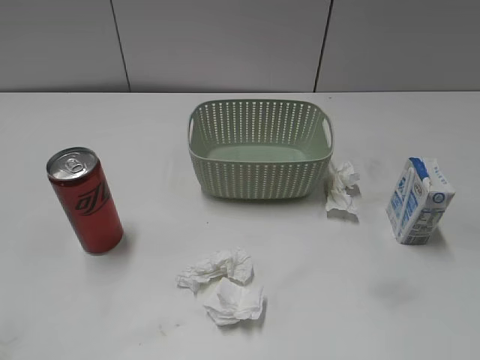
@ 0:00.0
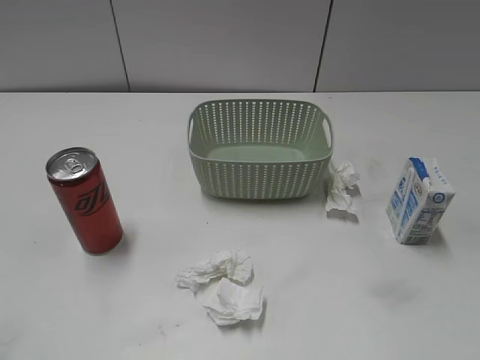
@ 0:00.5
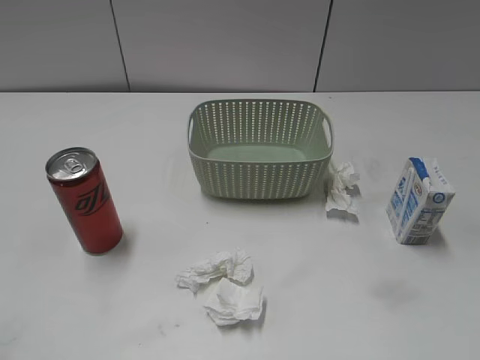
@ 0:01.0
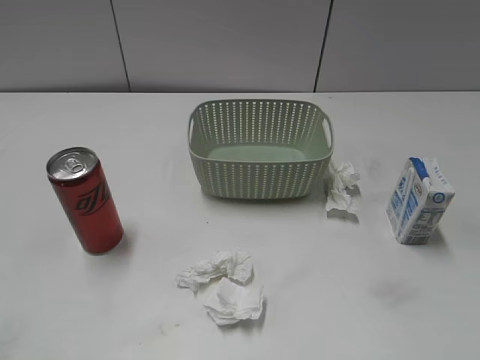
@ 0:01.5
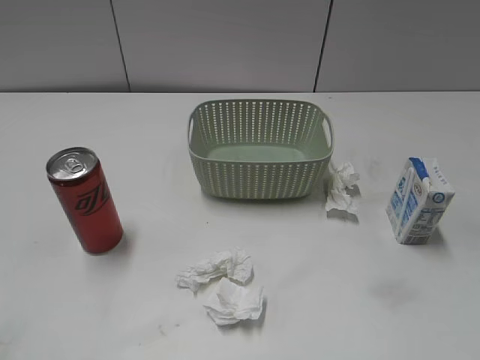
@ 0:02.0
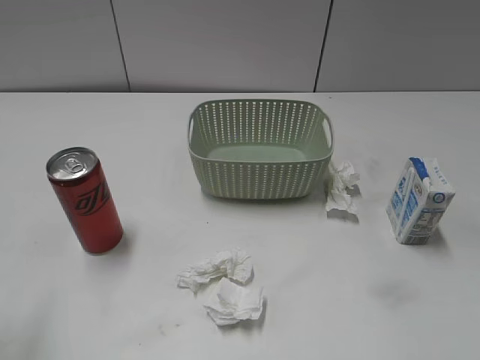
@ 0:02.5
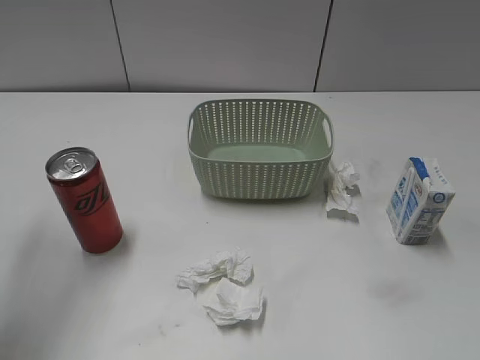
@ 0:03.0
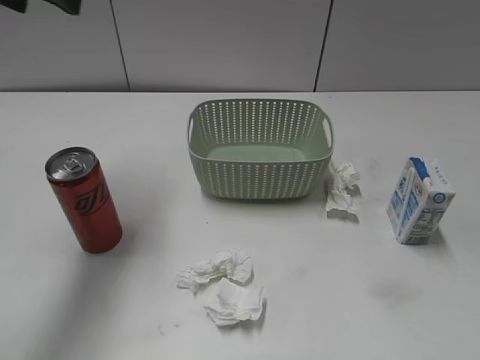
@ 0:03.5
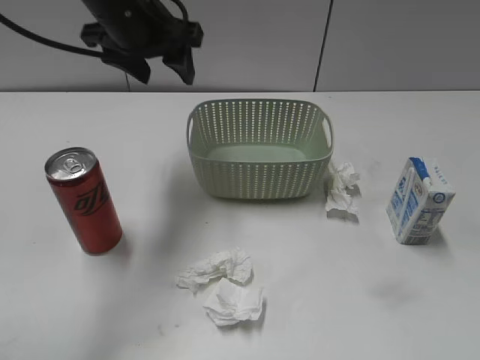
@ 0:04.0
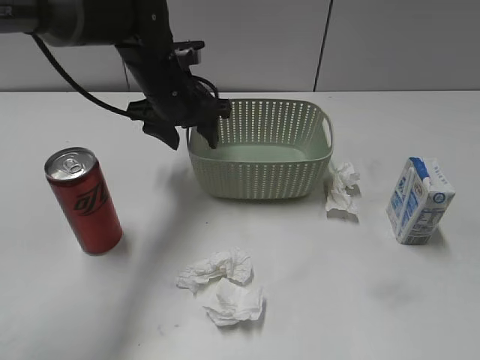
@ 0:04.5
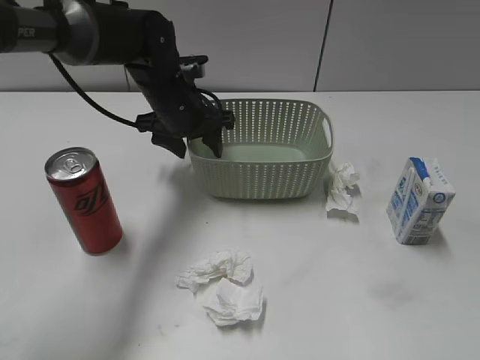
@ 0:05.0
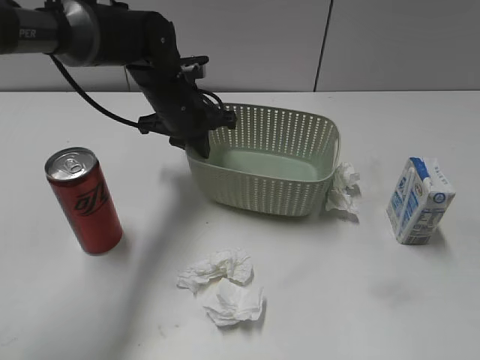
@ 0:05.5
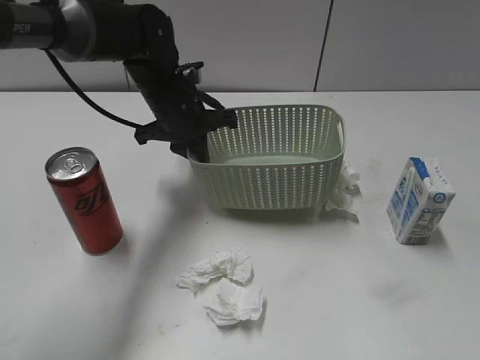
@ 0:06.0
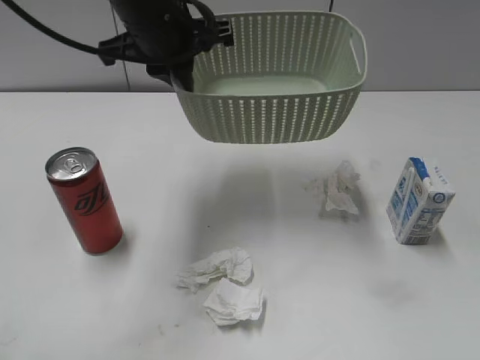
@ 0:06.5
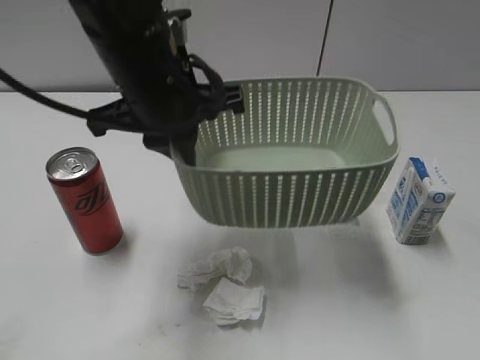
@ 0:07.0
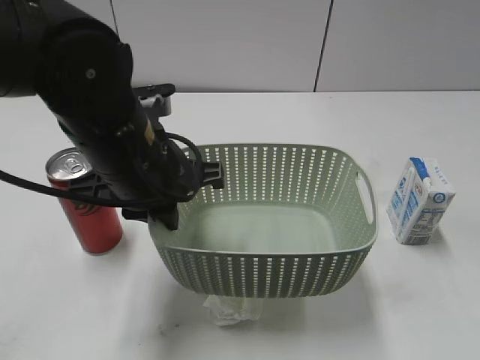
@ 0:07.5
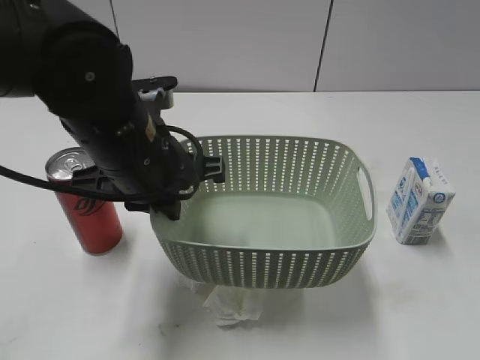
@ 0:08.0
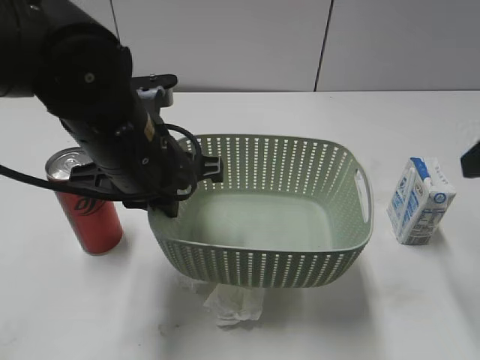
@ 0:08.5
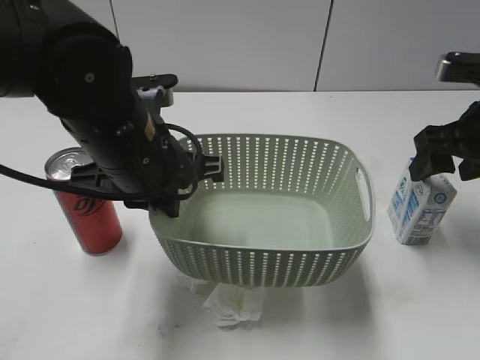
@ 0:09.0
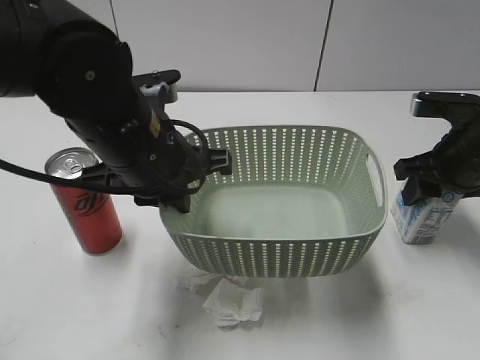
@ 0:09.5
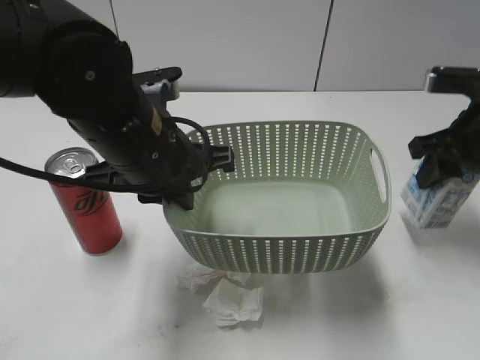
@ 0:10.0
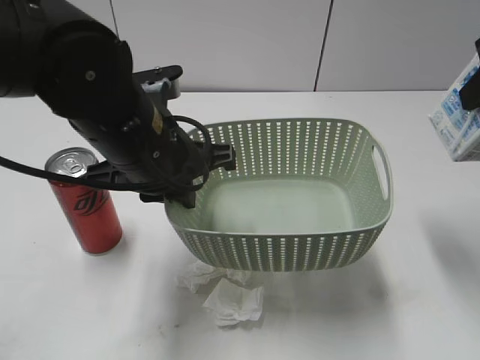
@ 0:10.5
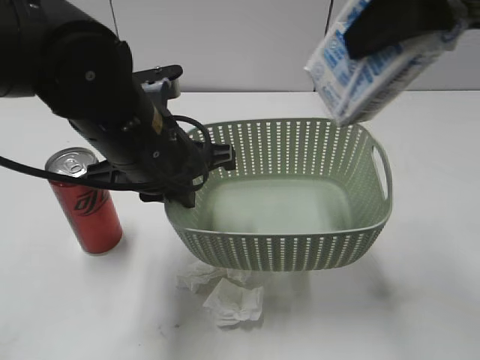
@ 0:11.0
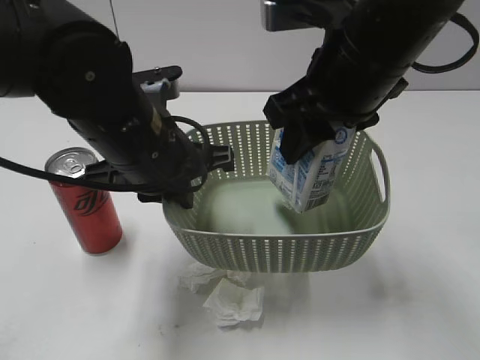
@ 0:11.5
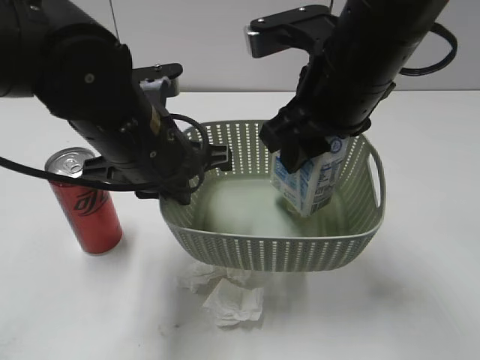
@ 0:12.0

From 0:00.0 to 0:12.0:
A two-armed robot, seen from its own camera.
Step, from 0:03.5 to 0:05.5: Grasp the basket with left gripper.
Step, from 0:06.0 to 0:08.0: Lift the basket with left gripper.
Step, from 0:08.5 to 0:09.5: Grasp the milk with right gripper.
From 0:02.0 to 0:04.0: The left gripper heads forward and to the right, covering approximately 40 cm.
From 0:04.0 to 0:06.0: The left gripper heads downward, covering roughly 10 cm, and closes its fingers.
From 0:06.0 to 0:08.0: The right gripper travels forward by some 5 cm, while the left gripper moves backward, some 15 cm.
From 0:08.0 to 0:10.0: The right gripper travels forward and downward by some 30 cm, and closes.
From 0:10.0 to 0:12.0: The right gripper is displaced to the left by about 20 cm.

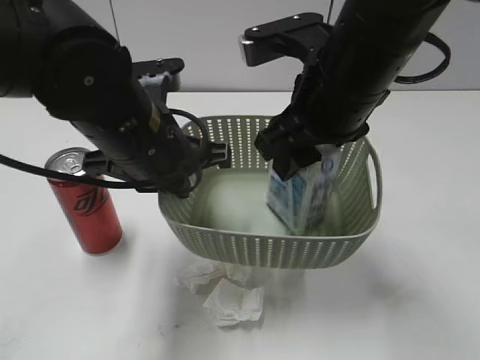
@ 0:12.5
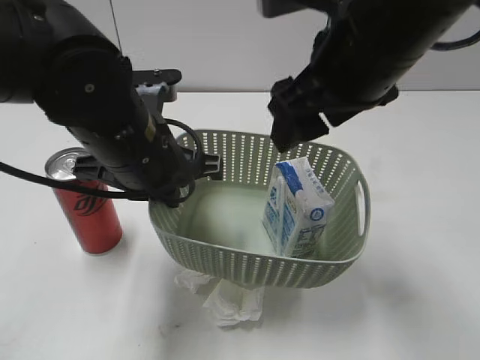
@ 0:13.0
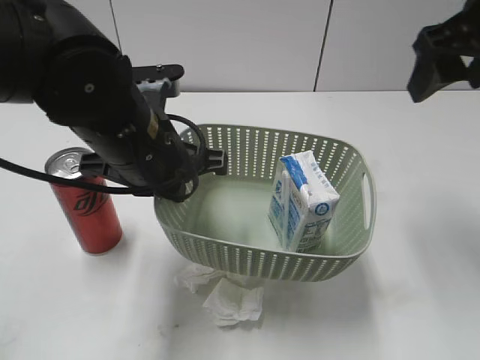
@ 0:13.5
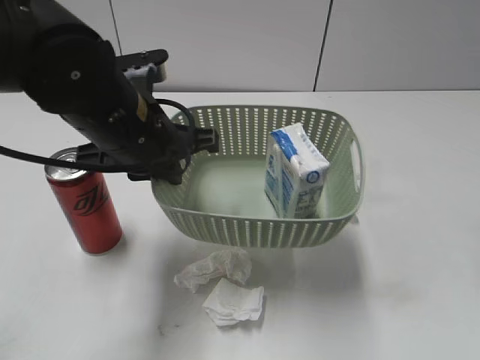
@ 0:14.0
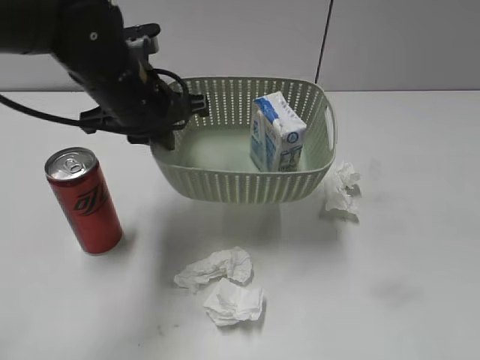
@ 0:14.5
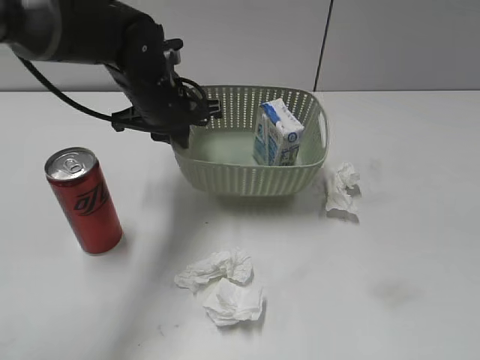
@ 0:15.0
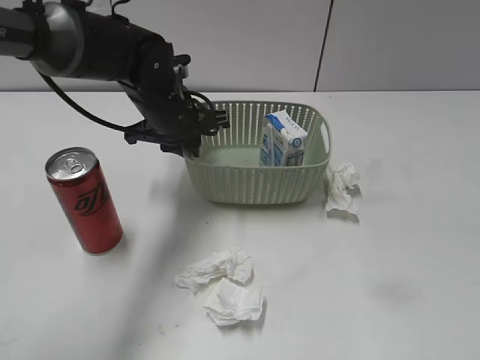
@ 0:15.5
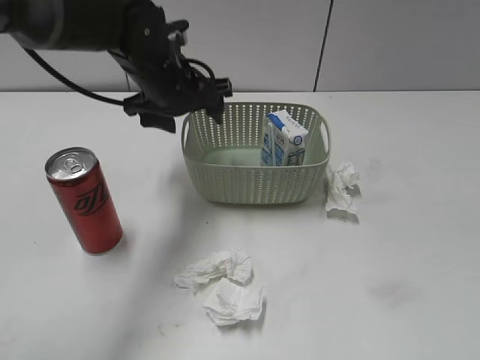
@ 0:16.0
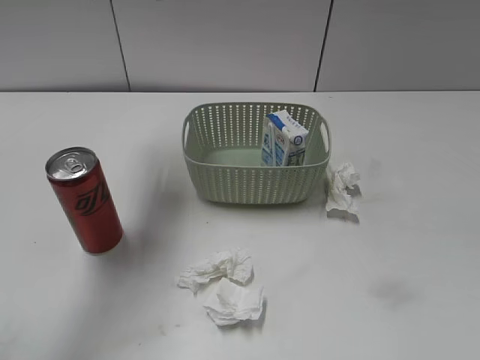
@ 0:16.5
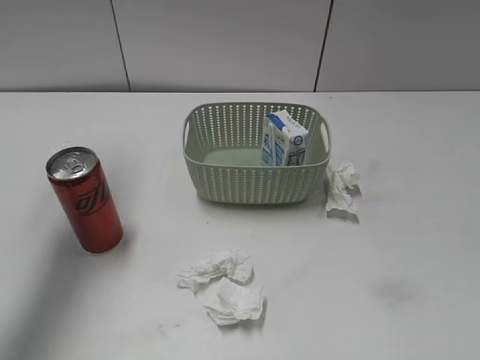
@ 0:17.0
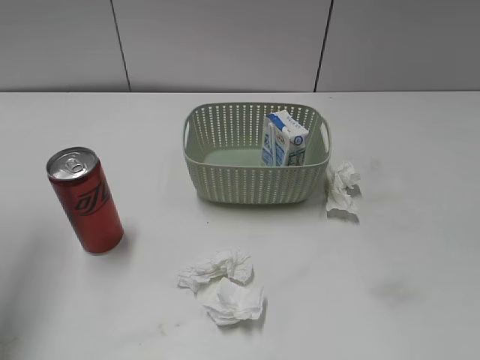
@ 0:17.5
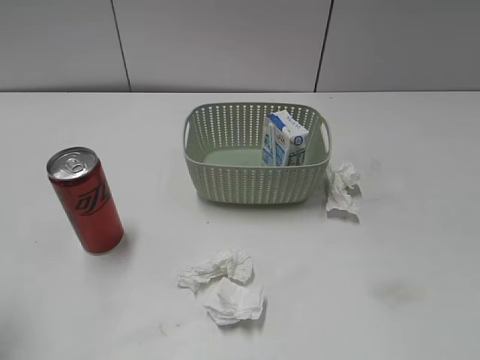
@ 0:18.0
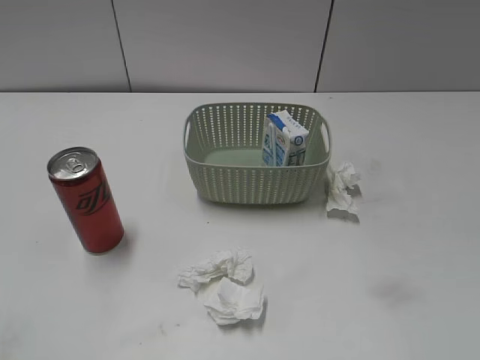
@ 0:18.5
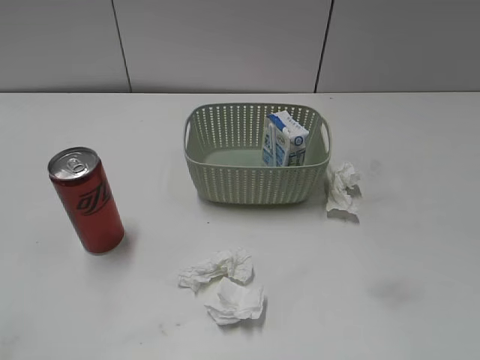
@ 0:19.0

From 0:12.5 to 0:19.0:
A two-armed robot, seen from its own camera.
Step, from 0:13.5 to 0:15.5: Place the basket on the table with left gripper.
From 0:12.5 to 0:14.5: The right gripper is displaced to the right and backward by some 30 cm, and opens up. The left gripper is displaced forward by roughly 10 cm.
From 0:14.5 to 0:17.0: The left gripper is displaced upward and to the left by roughly 25 cm, and opens its fingers, while the right gripper is displaced backward and downward by approximately 10 cm.
From 0:17.0 to 0:19.0: The left gripper moves backward, about 35 cm.

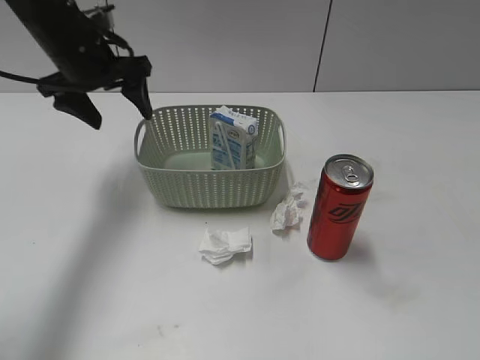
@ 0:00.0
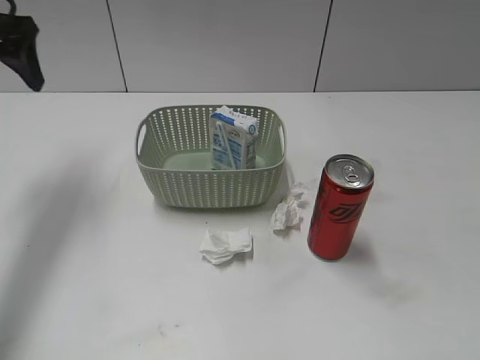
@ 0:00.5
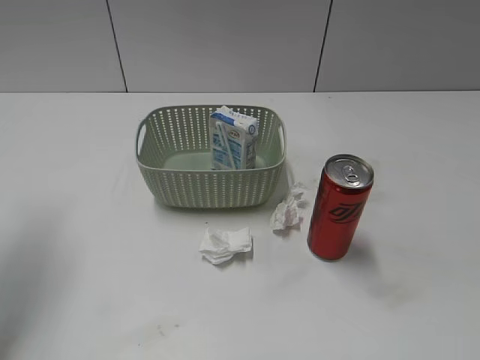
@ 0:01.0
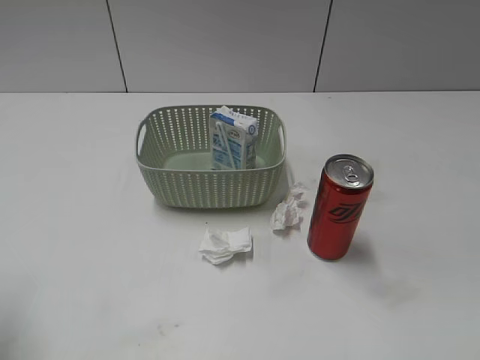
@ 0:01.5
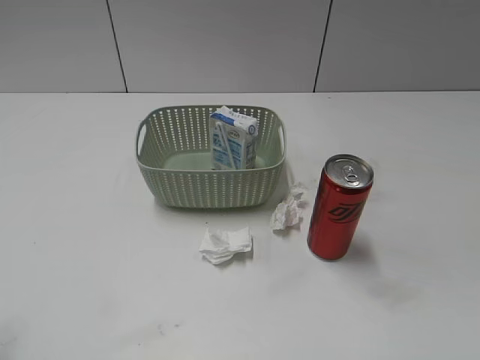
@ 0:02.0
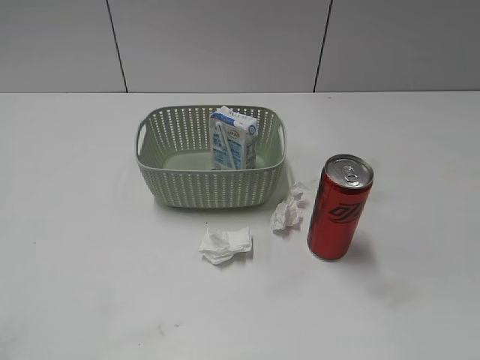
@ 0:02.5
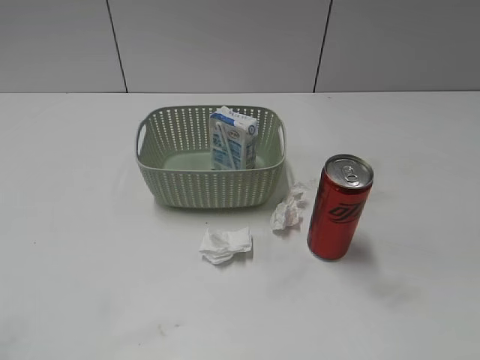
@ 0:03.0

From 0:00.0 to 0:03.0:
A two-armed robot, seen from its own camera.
From 0:00.0 to 0:01.5: The left gripper heads backward and to the left, covering about 30 cm.

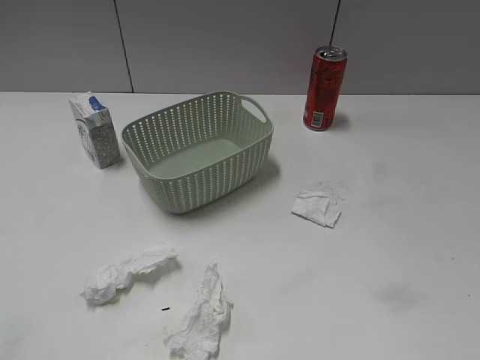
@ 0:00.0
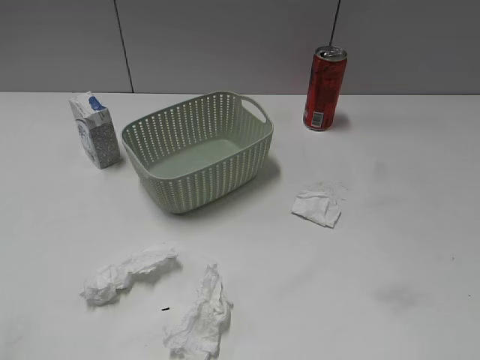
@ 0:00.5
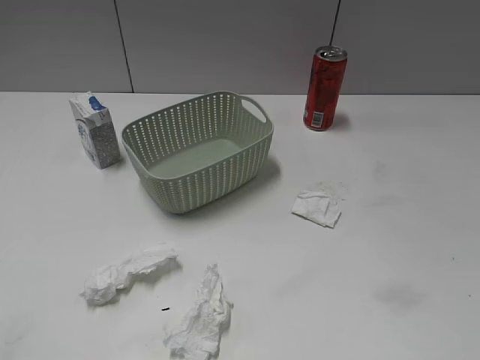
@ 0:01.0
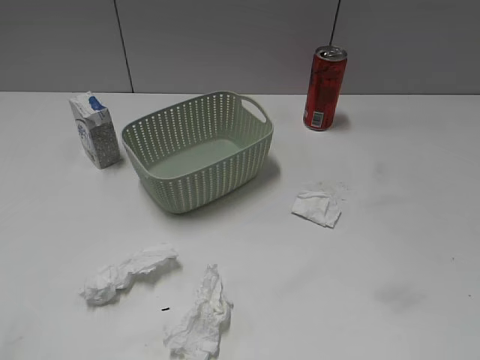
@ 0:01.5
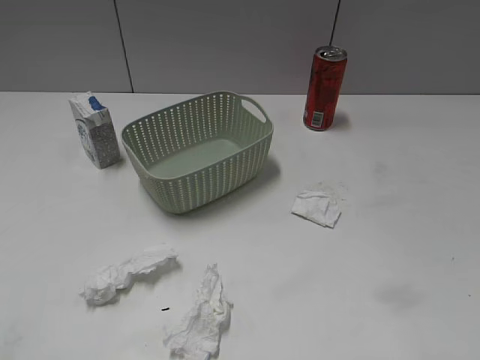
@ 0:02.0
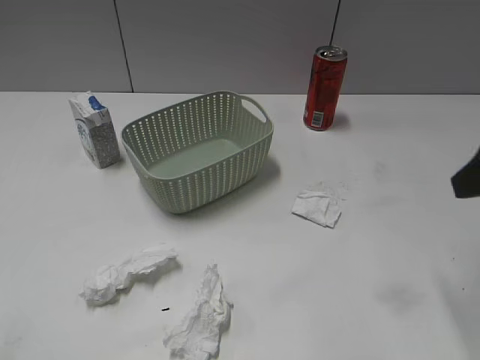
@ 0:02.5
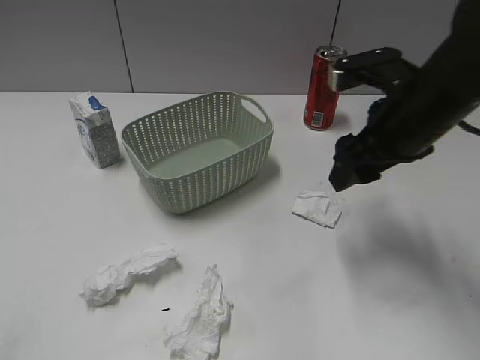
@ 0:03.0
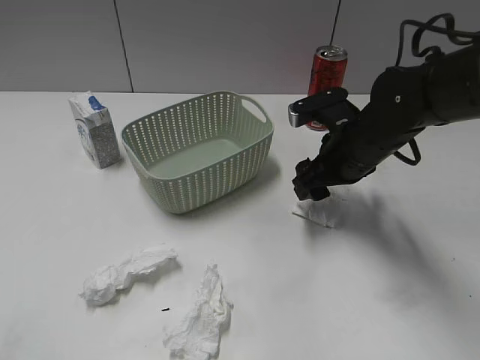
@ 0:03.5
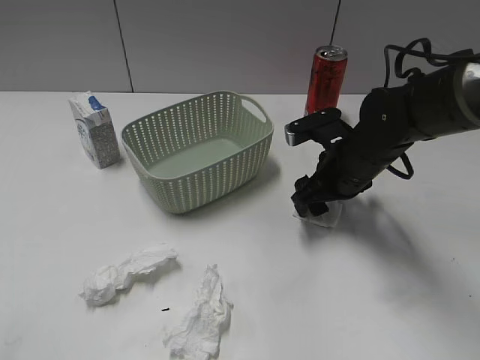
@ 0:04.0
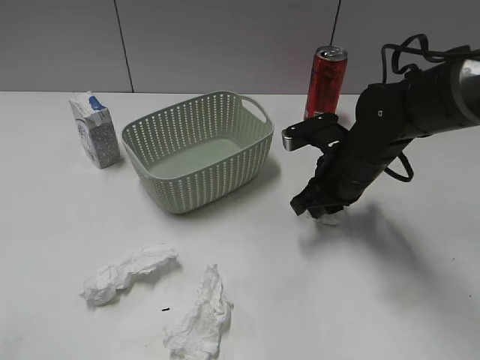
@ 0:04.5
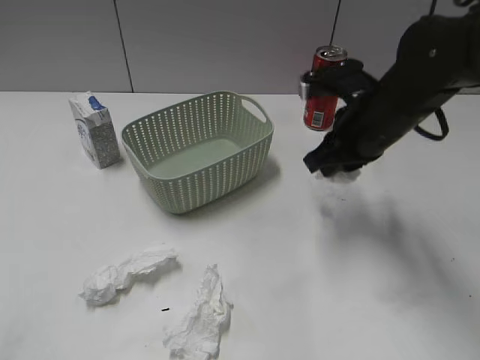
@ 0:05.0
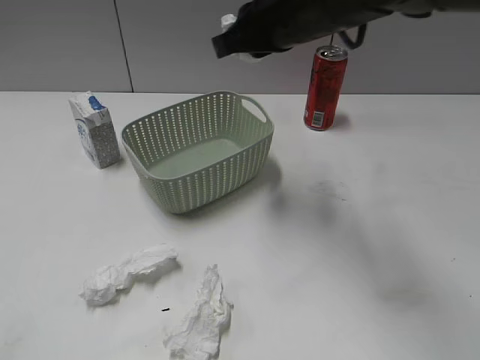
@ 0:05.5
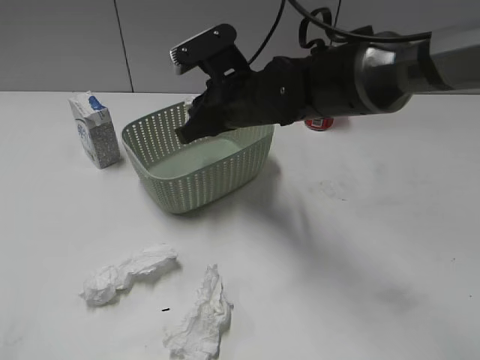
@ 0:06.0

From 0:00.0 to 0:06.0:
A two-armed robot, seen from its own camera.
Step, from 0:02.5 to 0:04.5: Grasp the waste paper with right gripper.
From 0:02.0 to 0:04.0: The right gripper is displaced forward, downward and to the left by roughly 35 cm.
From 0:04.0 to 0:06.0: The right gripper travels to the left and upward by approximately 15 cm, and closes up.
